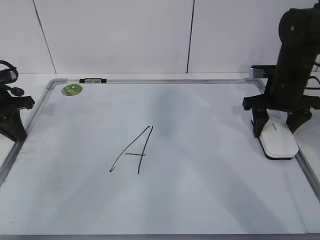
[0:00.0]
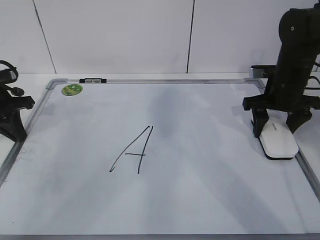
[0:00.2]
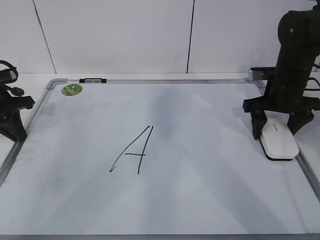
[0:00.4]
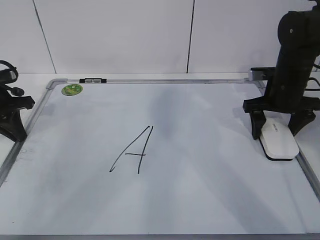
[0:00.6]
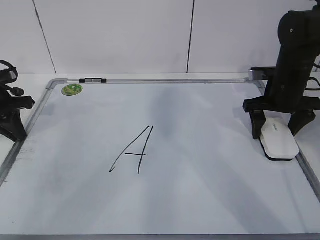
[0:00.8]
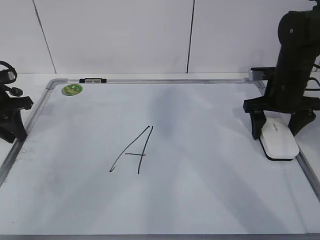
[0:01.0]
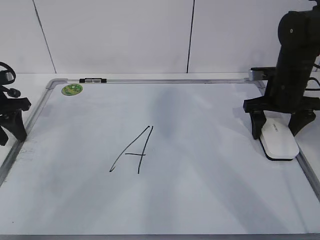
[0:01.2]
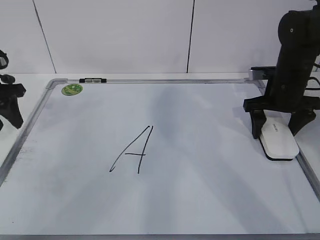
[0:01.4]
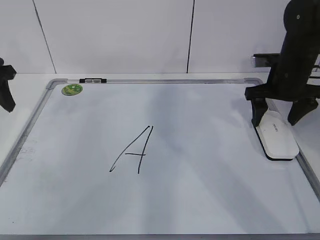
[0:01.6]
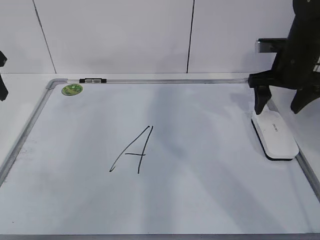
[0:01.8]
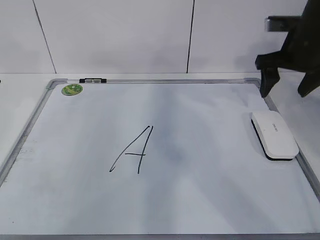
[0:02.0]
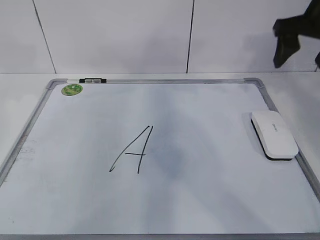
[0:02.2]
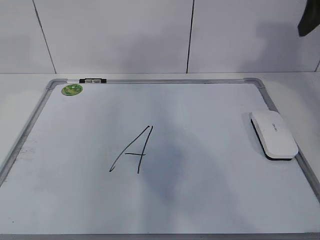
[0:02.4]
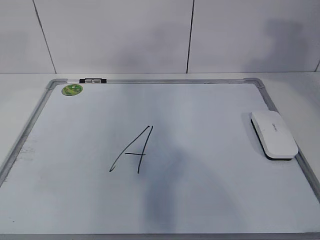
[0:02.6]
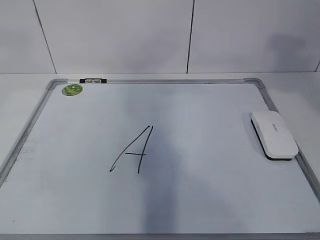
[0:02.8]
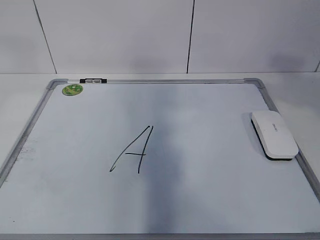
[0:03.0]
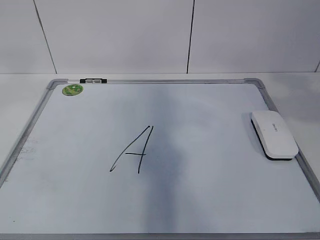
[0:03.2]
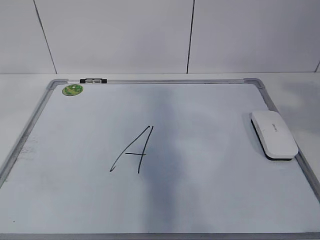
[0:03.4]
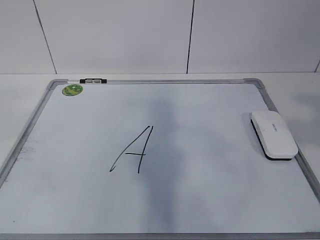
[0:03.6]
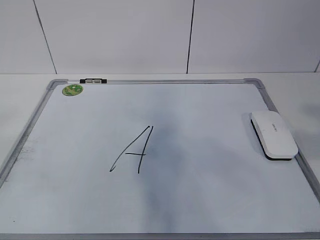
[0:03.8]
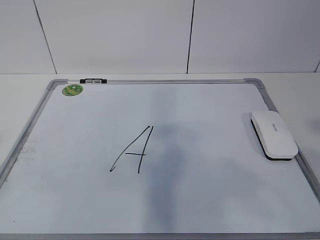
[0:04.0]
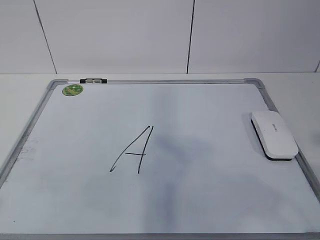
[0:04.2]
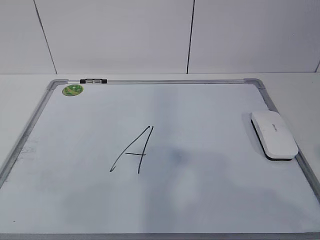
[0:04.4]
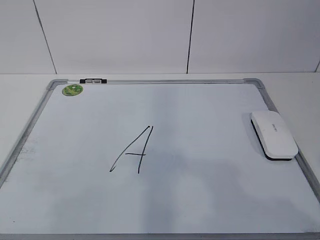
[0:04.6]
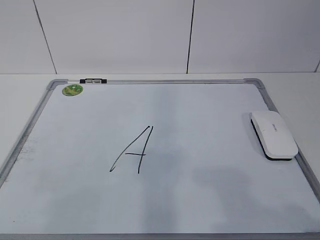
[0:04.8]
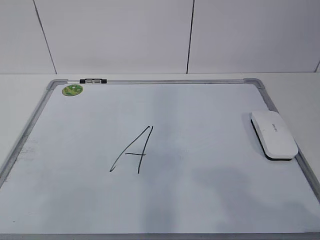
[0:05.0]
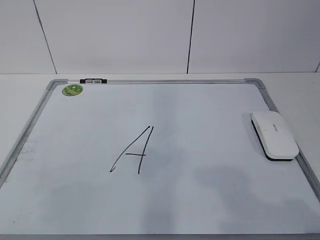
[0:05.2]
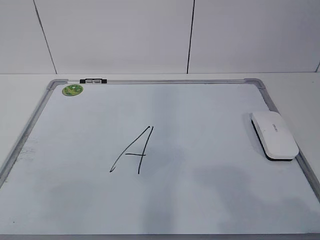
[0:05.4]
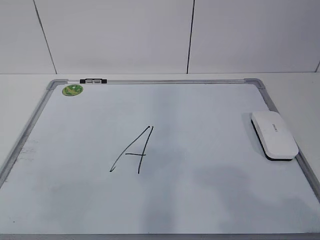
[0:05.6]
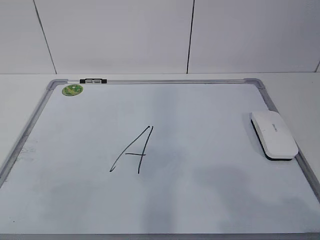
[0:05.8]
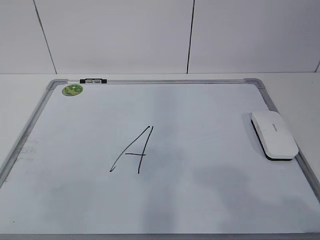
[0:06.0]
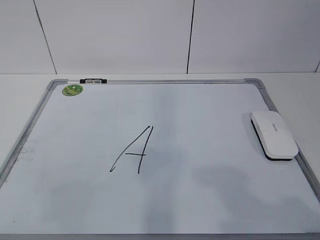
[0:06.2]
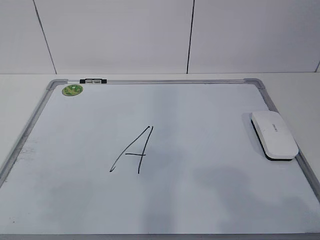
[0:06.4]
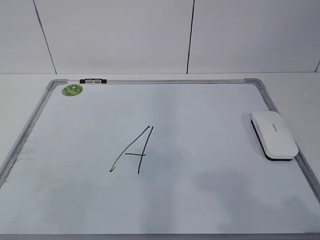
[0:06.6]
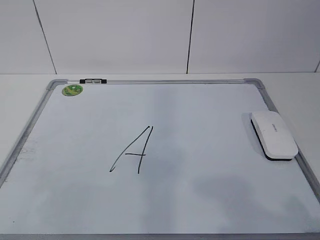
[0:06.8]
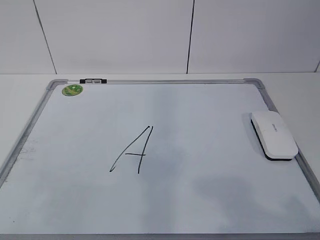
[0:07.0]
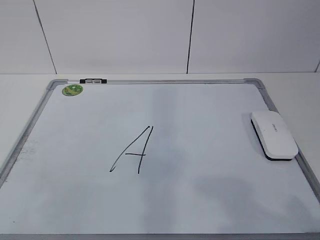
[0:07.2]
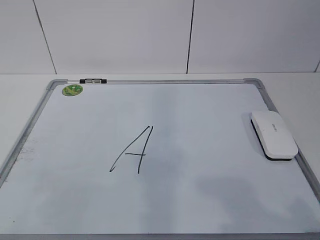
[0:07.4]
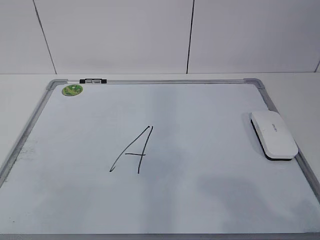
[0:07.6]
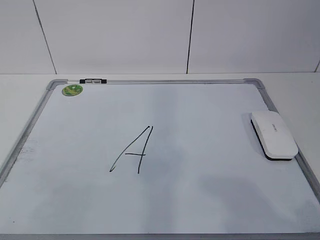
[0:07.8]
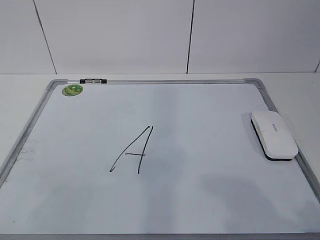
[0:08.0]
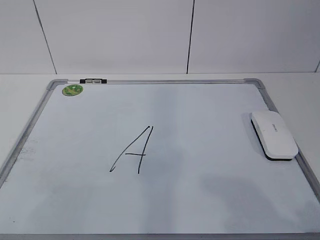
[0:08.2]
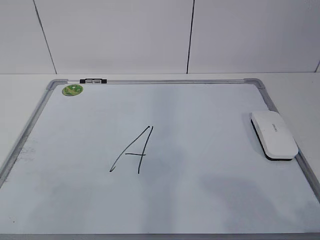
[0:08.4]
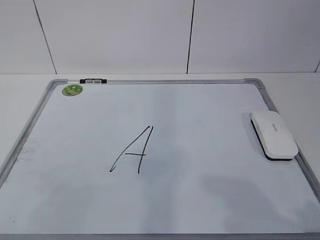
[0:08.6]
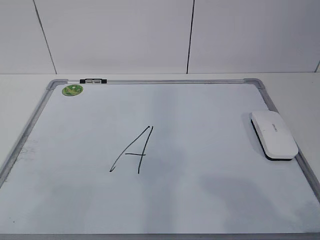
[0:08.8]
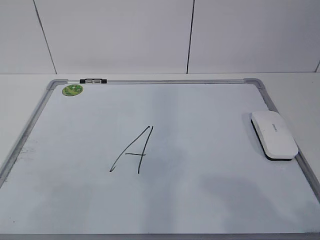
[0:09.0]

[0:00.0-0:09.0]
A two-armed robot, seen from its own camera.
Task of the whole recording: pick up the eraser on the blackboard and erase the letter "a".
0.0 to 1.6 s: The left gripper shifts approximately 10 cm upward, and opens. The right gripper opens up.
1.6 to 3.0 s: The left gripper travels upward and backward by about 35 cm, while the right gripper moves backward and upward, roughly 30 cm, and closes its fingers.
3.0 to 4.4 s: The grippers both shift backward and downward by some 20 cm.

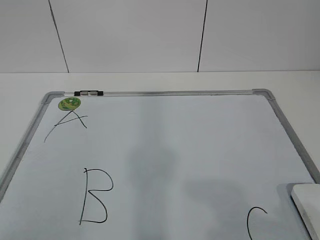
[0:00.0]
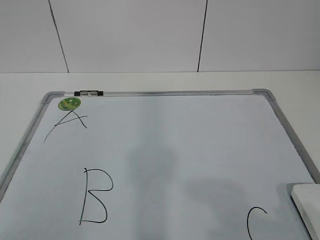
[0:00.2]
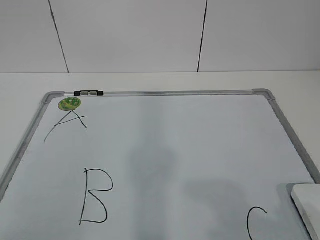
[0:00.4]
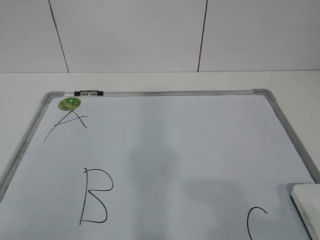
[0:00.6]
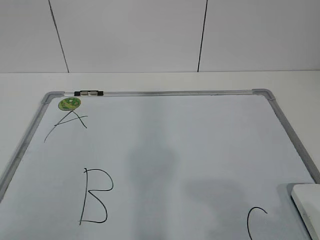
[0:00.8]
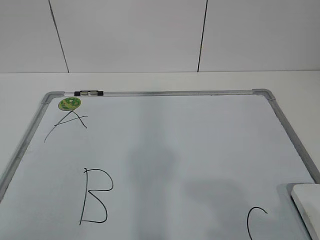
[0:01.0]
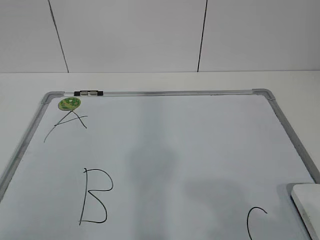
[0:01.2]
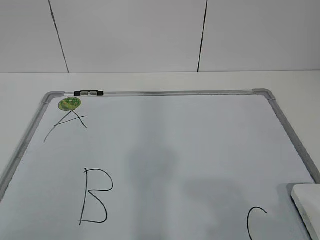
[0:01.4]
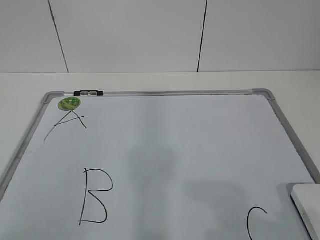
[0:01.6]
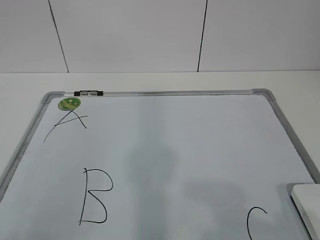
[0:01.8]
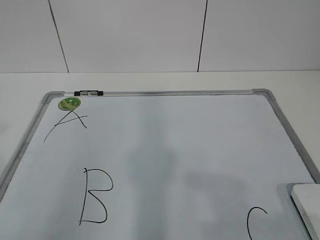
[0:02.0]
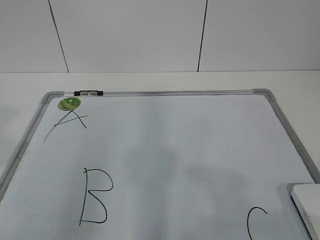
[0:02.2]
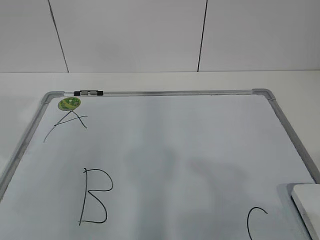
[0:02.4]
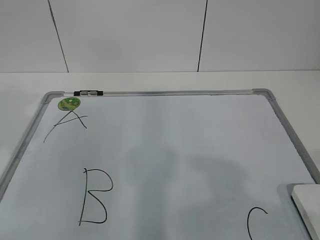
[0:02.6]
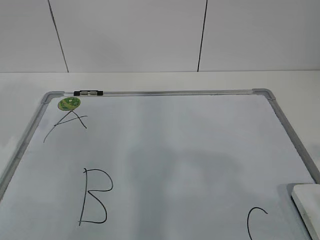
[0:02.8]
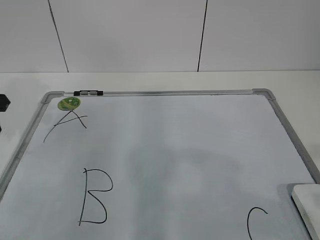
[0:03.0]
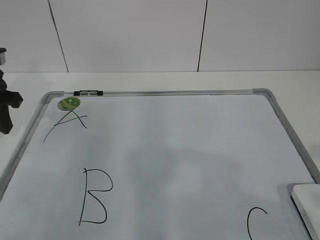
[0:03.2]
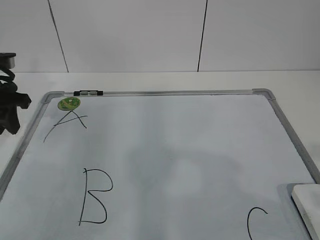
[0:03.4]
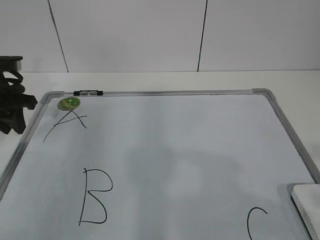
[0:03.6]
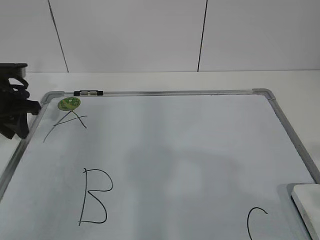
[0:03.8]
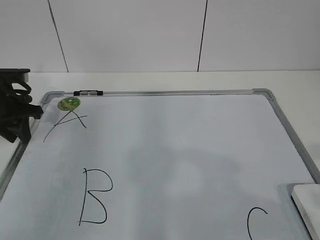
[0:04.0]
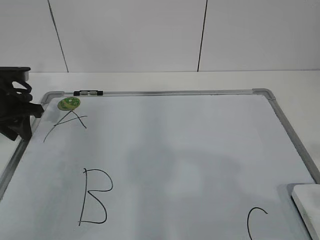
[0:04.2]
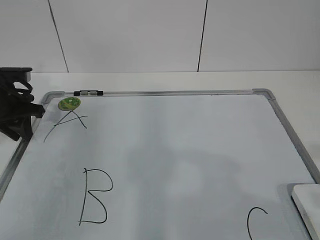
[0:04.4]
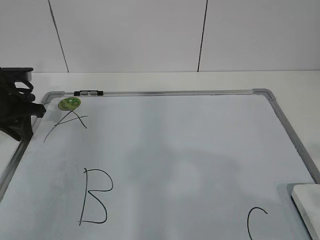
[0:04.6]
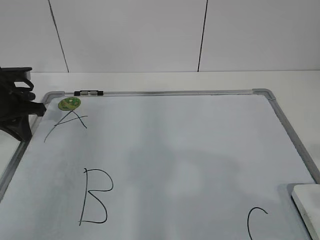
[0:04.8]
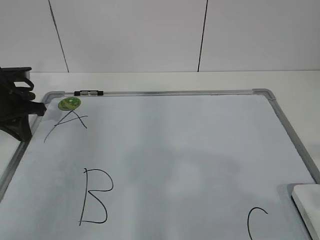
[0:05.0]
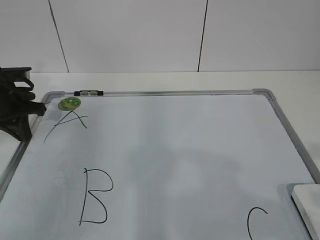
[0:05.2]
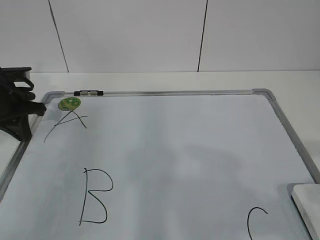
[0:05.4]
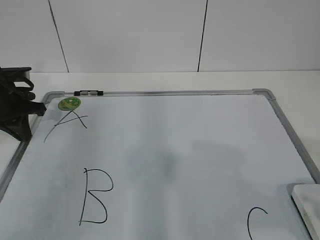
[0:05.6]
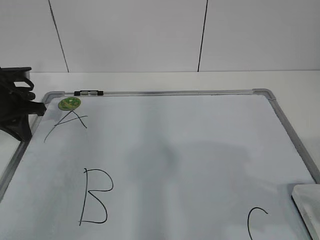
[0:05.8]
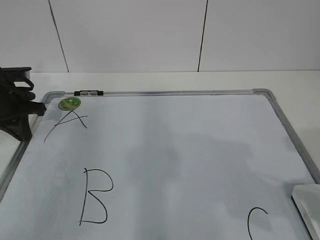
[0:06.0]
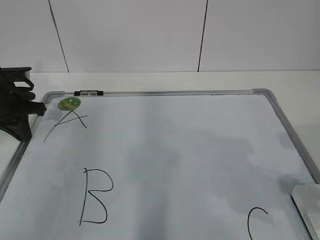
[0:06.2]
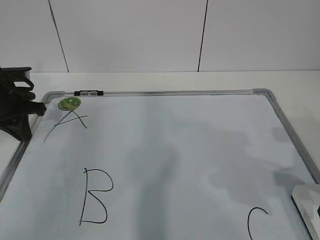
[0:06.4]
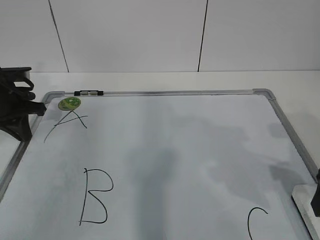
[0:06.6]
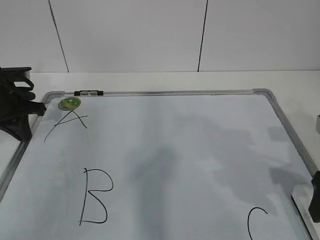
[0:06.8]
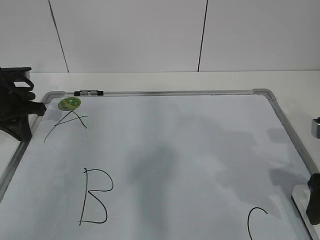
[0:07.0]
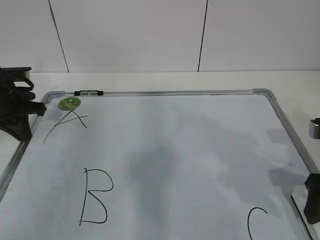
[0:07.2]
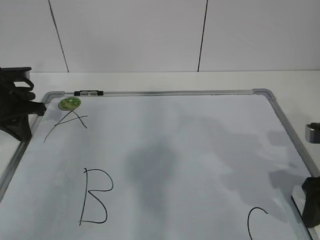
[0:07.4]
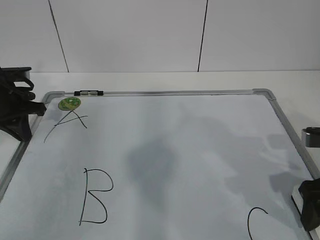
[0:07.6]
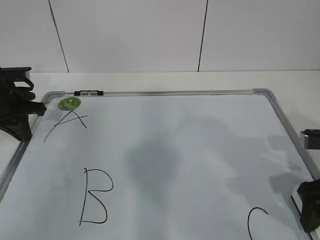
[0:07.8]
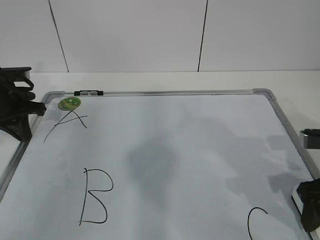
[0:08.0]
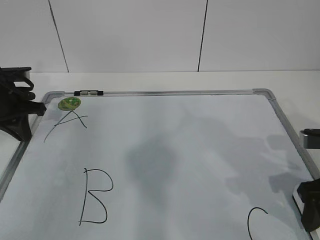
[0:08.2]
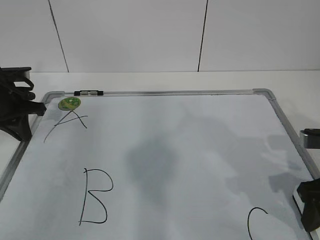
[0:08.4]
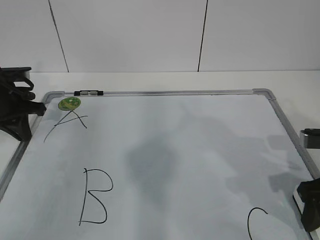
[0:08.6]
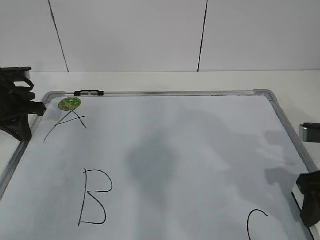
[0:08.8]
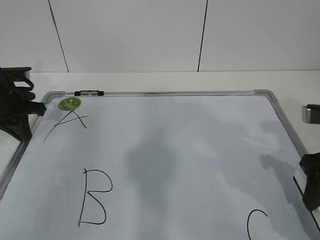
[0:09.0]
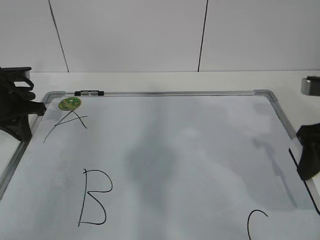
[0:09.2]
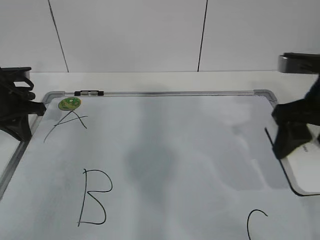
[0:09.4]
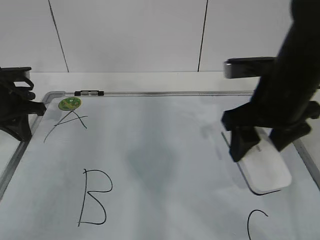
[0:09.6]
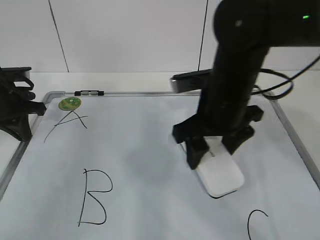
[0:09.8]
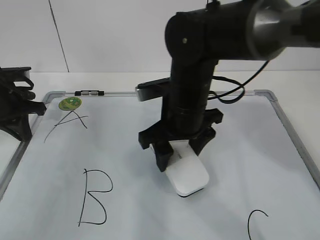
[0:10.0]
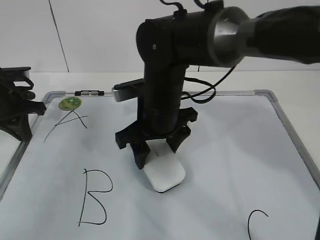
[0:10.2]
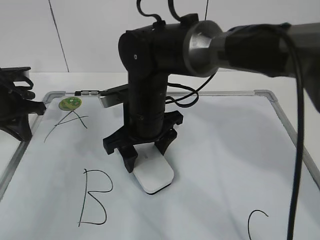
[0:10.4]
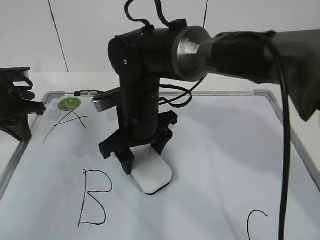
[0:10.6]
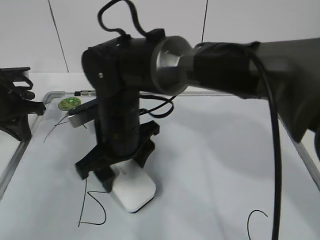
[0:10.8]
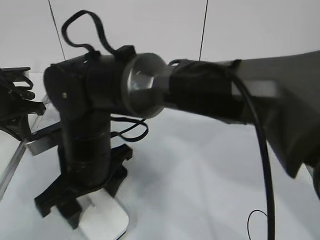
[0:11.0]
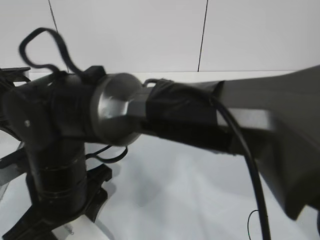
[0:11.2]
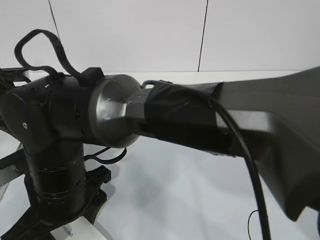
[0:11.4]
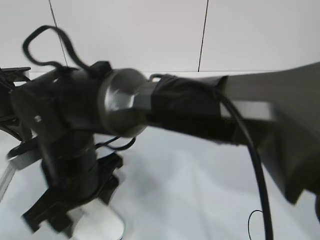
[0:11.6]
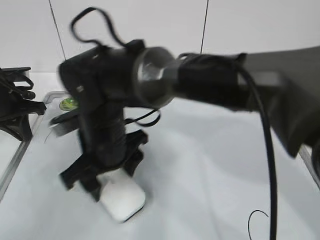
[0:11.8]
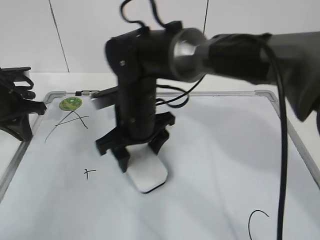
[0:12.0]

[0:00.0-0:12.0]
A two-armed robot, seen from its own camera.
Task of the whole recording: pick up the eraser on the blackboard and erase the letter "B".
Step, 0.0 to 3.8 s: Hold the drawing board steady with your left hand.
1.6 to 3.0 s: The left gripper shifts approximately 30 cm forward.
3.0 to 4.4 s: The left gripper moves downward and forward, roughly 10 cm.
4.4 to 6.0 s: The right gripper travels forward by approximately 10 cm, and opens its fingers. The left gripper closes its fingers.
6.0 to 7.6 s: The right gripper shifts roughly 10 cm forward and downward.
7.6 to 9.0 s: The right gripper closes its fingers.
9.0 to 10.4 s: The right gripper heads to the left, covering some 25 cm.
10.4 to 12.0 s: The right gripper moves roughly 10 cm backward and comes back.

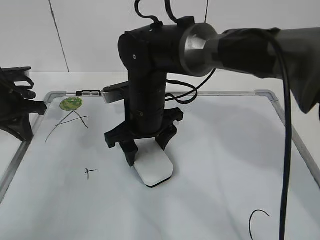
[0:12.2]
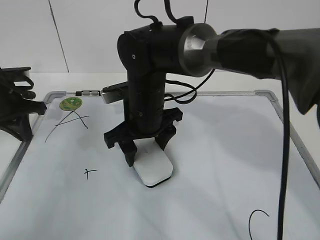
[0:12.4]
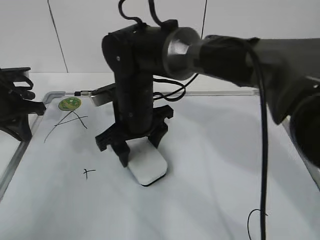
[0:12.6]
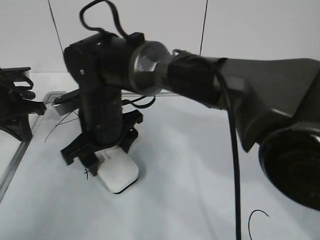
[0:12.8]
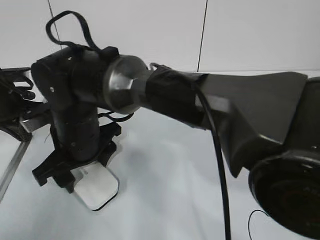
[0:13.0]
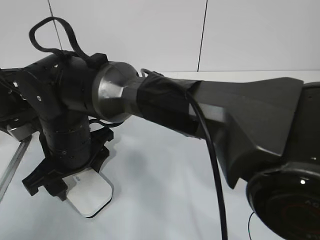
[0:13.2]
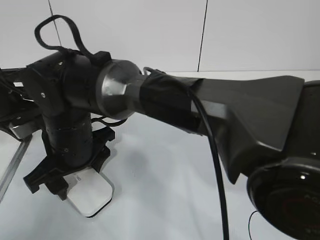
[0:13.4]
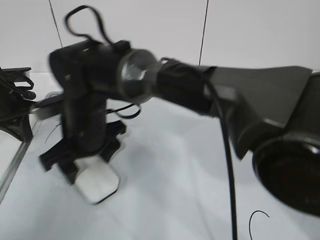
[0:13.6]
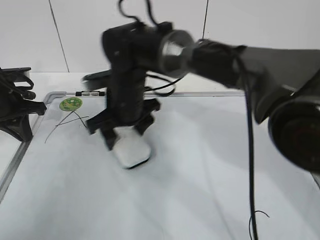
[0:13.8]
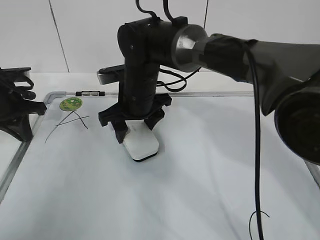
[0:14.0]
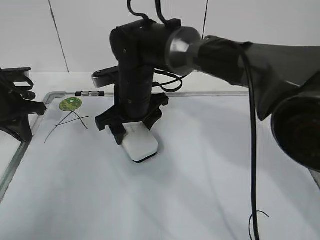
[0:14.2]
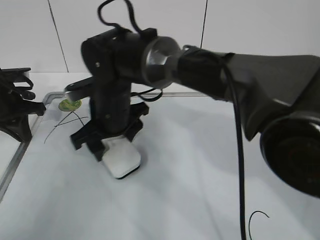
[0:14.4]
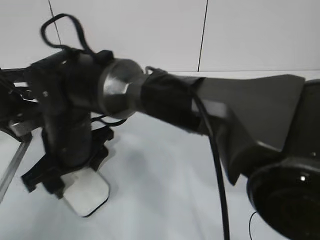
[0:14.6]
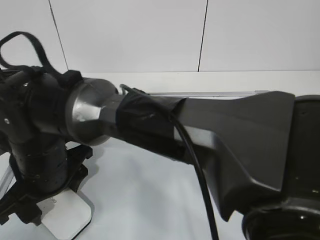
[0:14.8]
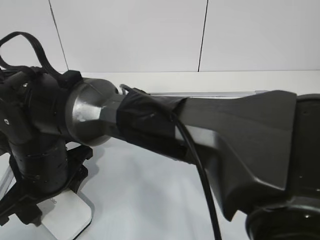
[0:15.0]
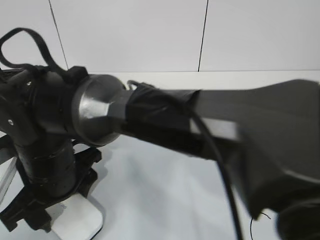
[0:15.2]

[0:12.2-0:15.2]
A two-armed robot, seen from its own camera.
Task of the whole recording: pick up the eraser on the blackboard and erase the letter "B".
Step, 12.6 to 15.2 s: Put down the eraser with your right hand.
12.2 to 13.8 s: The right gripper goes to the left and returns, some 10 cm each way.
13.8 to 15.2 s: The right gripper goes approximately 15 cm backward and to the left.
